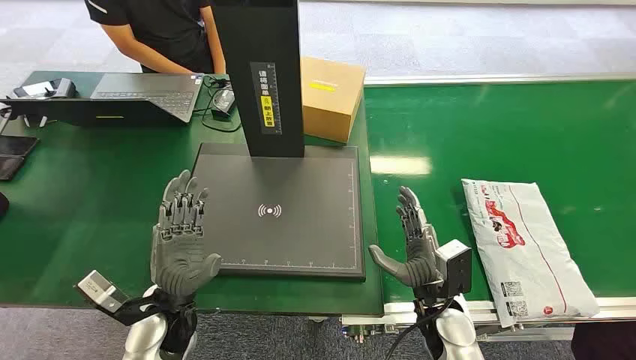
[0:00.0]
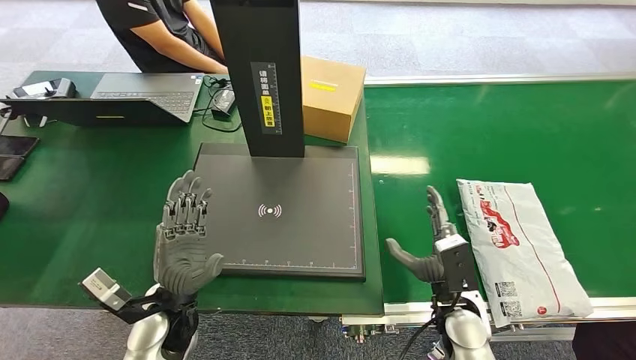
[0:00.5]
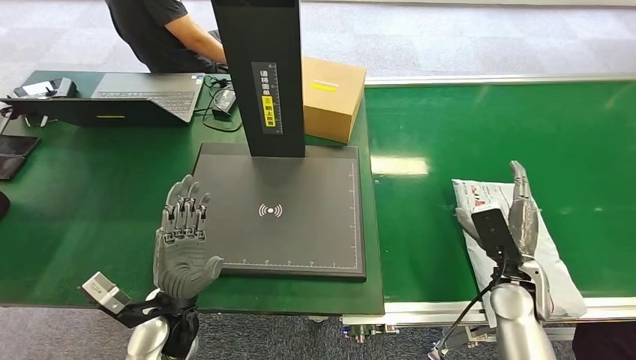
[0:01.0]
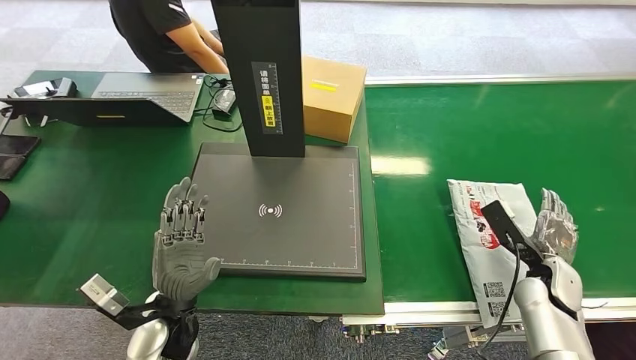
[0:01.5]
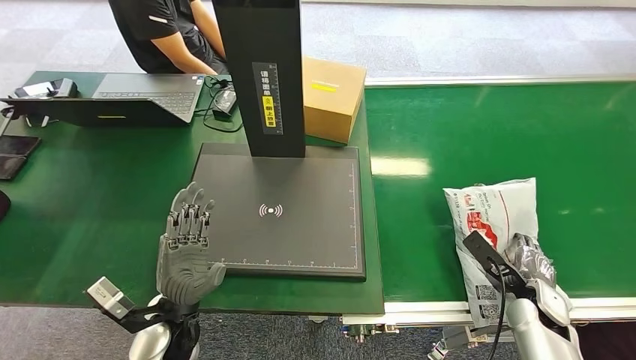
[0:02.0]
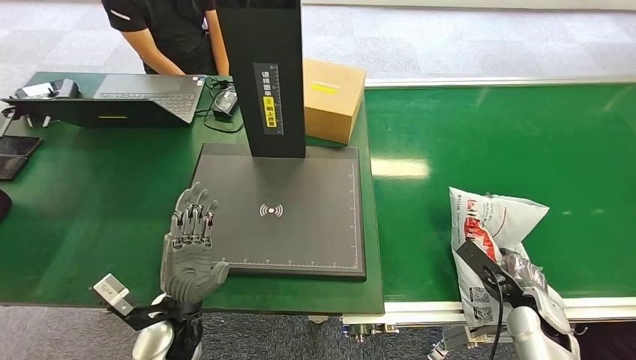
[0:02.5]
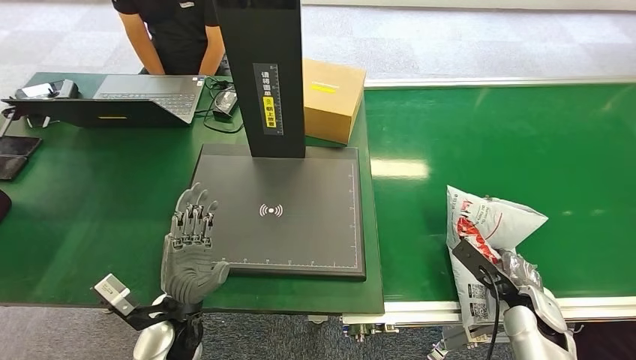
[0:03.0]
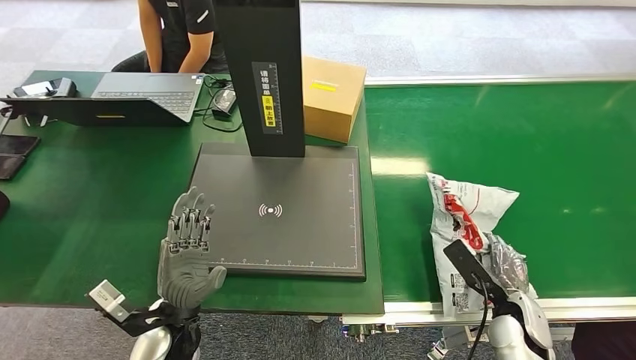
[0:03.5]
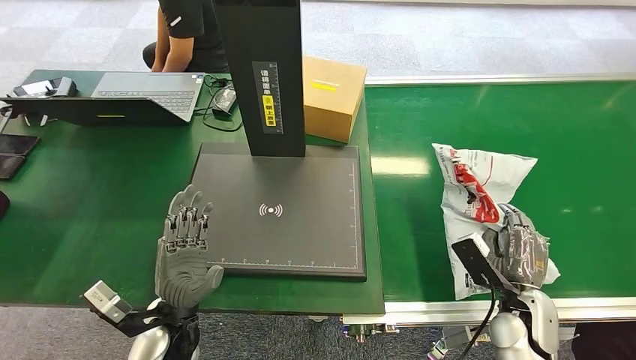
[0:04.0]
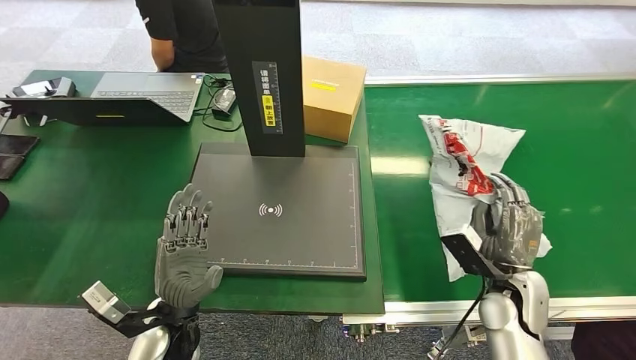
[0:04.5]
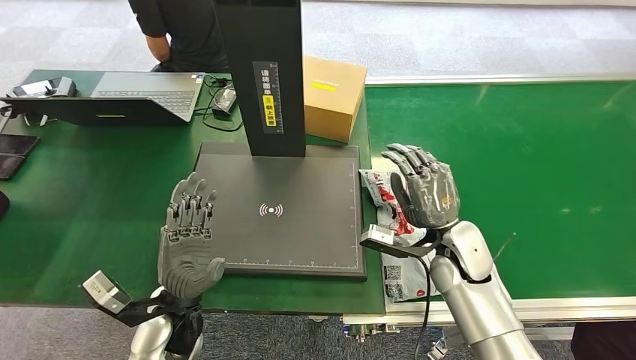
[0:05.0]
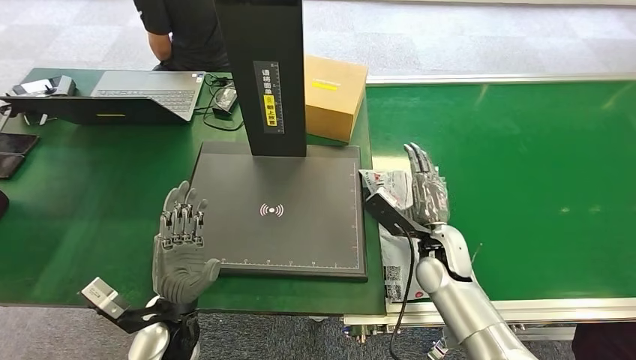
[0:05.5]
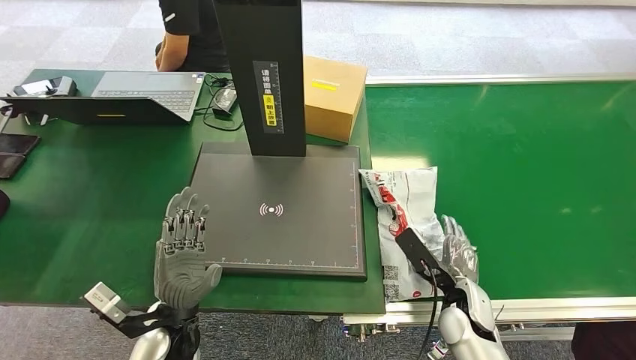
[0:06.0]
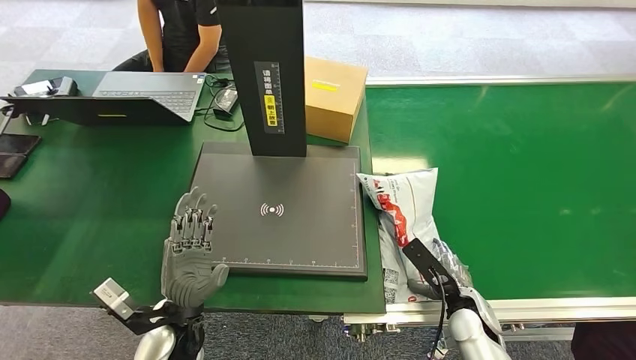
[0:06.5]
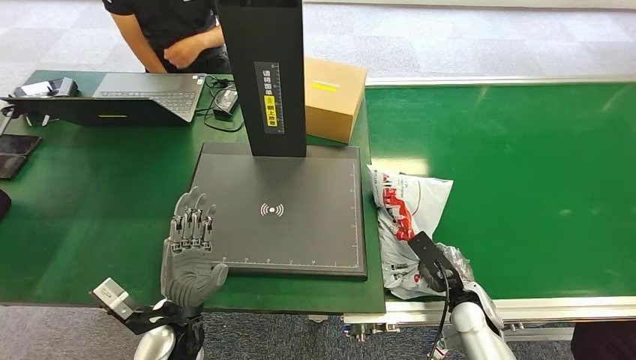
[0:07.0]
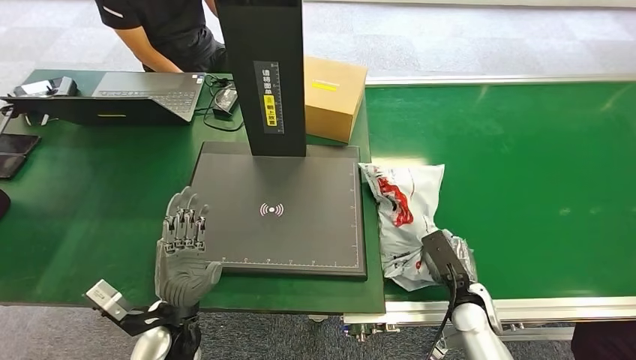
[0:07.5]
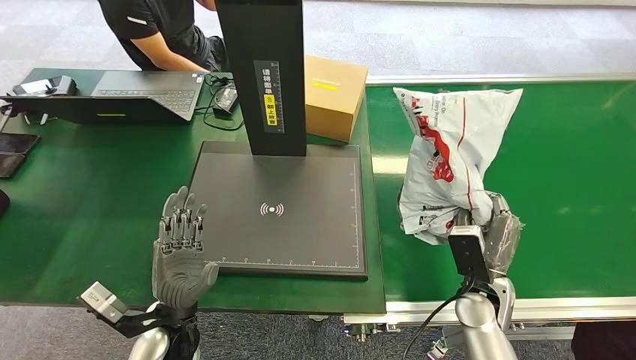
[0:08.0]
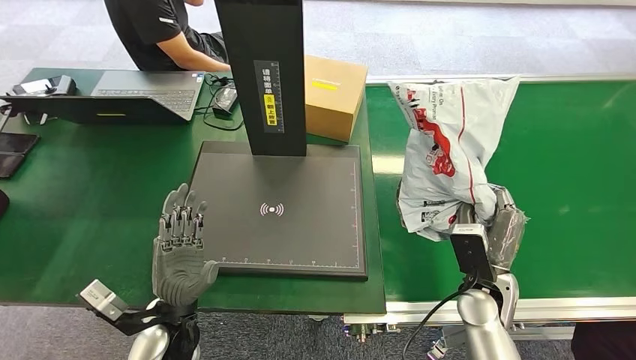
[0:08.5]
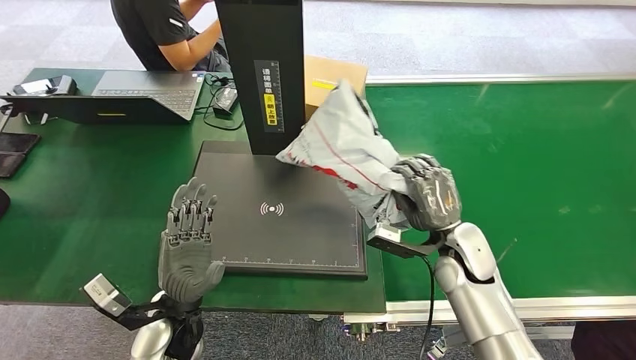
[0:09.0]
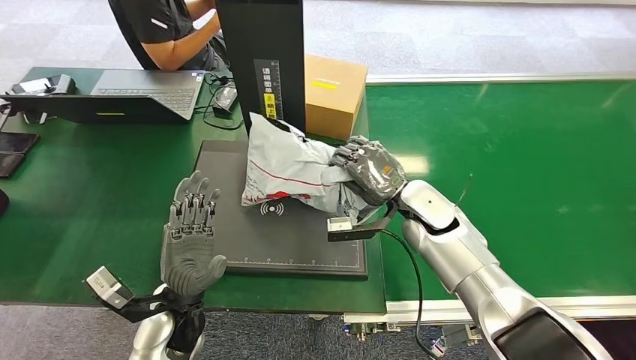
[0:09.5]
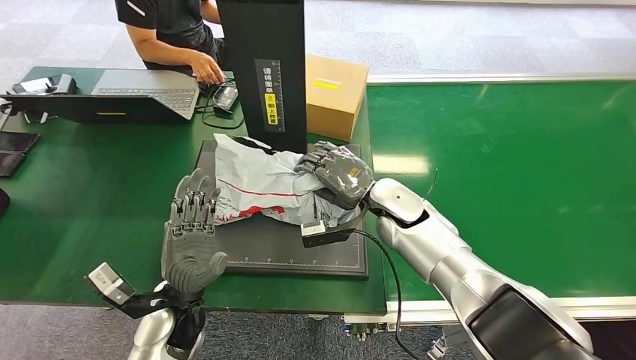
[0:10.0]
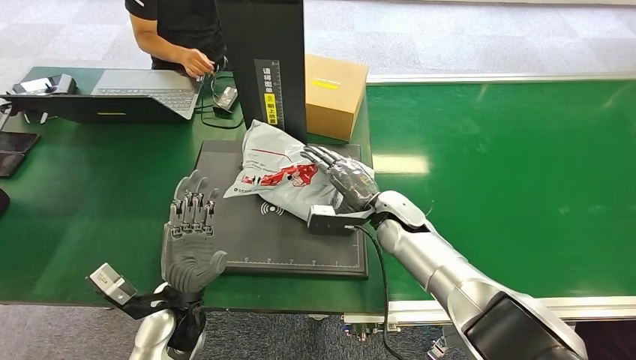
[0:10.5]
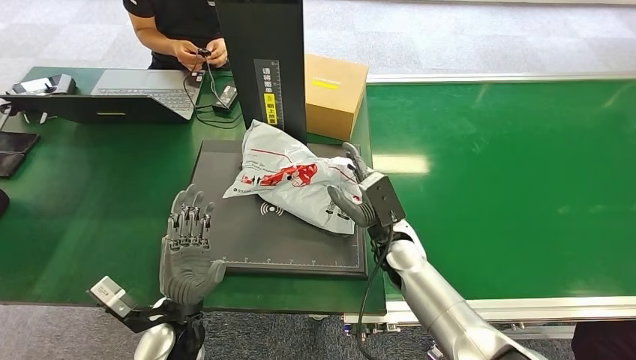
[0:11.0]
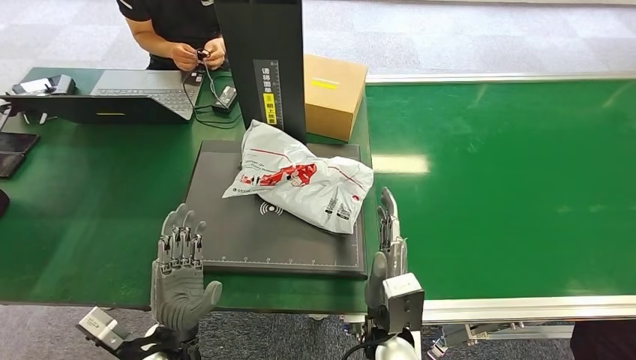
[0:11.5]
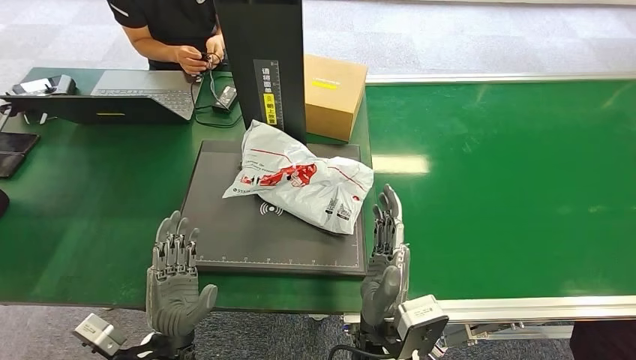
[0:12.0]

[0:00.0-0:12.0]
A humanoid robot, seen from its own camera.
Step, 0:00.0 to 0:03.5: Pick up the package from the conveyor belt.
Step, 0:04.0 to 0:10.0: Place the package onto the inbound machine.
0:02.0 to 0:04.0: The right hand shifts roughly 5 cm to the left.
0:04.0 to 0:06.0: The right hand goes approximately 10 cm to the left.

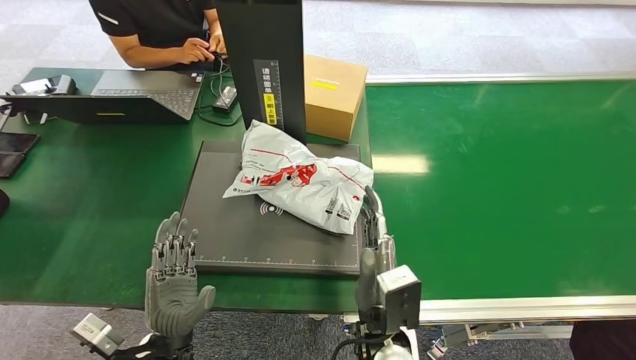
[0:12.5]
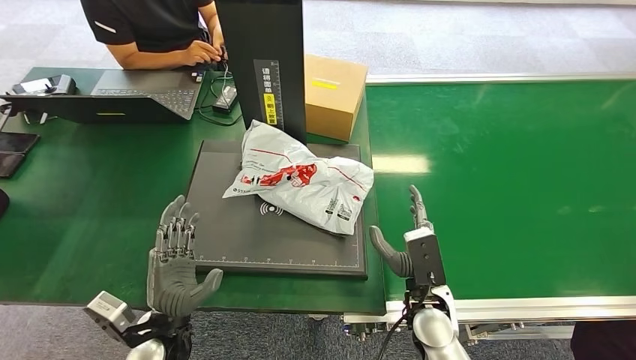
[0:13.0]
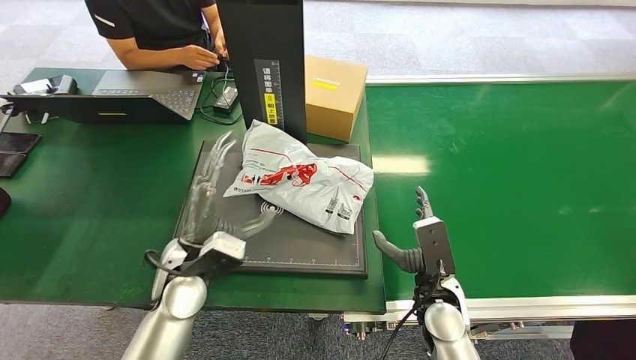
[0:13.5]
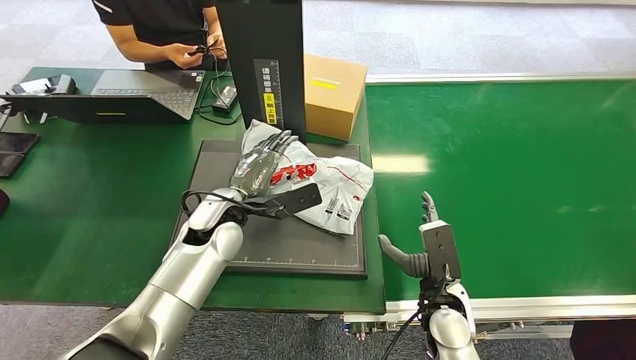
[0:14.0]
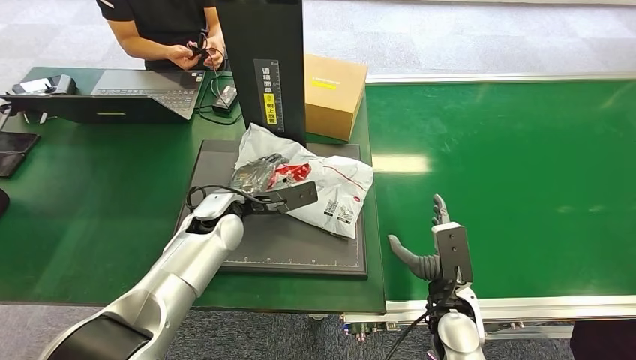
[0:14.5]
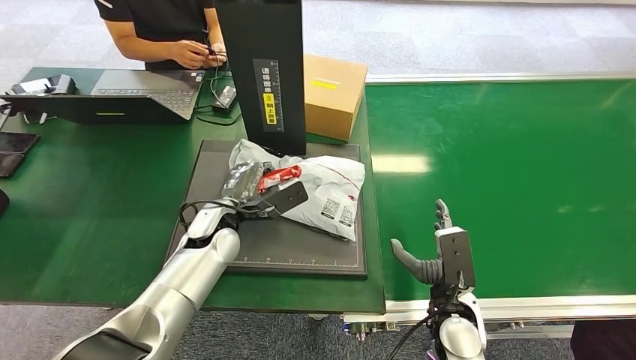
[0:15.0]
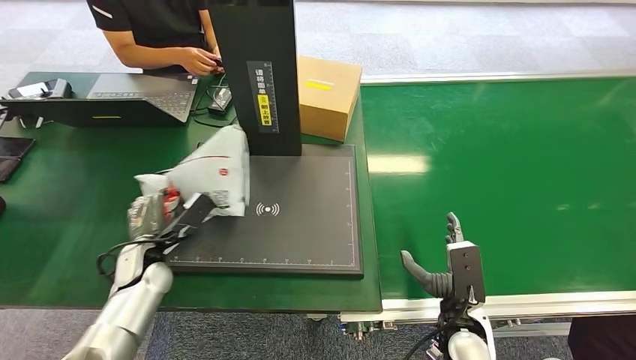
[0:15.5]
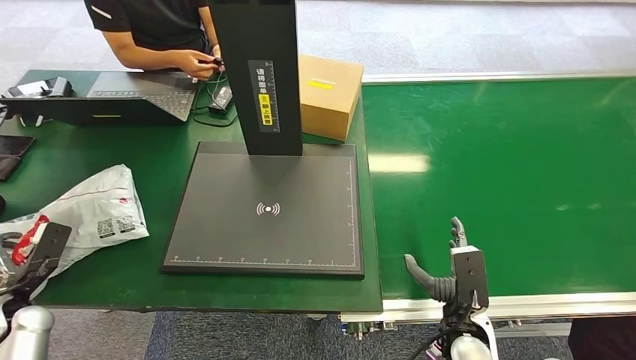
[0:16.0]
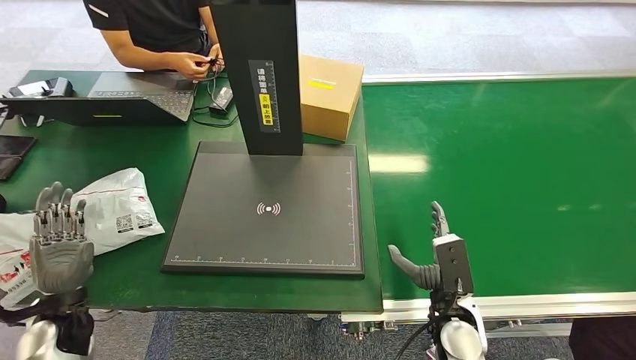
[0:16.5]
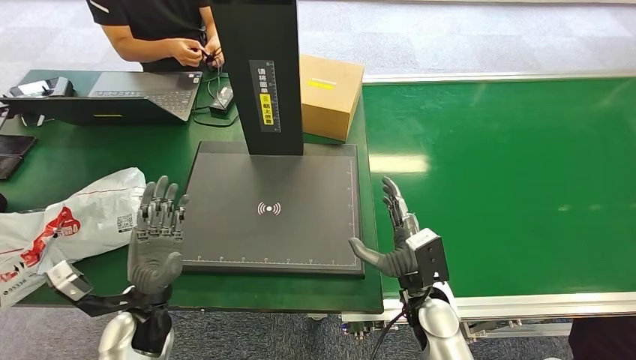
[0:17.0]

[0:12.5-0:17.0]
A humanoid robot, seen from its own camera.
Step, 0:12.5 to 0:15.0: Pick up the package from the inbound machine.
Step, 0:15.5 to 0:17.0: Place the package into the parcel locker.
0:12.5 to 0:14.5: The right hand travels to the right by about 15 cm, while the left hand travels forward by approximately 25 cm.
